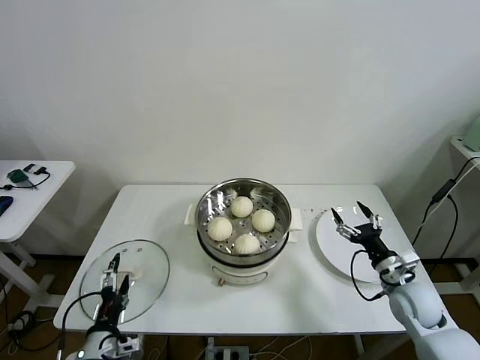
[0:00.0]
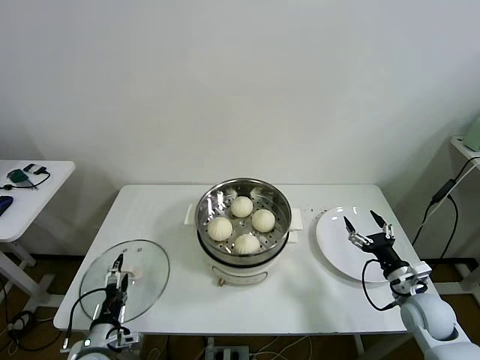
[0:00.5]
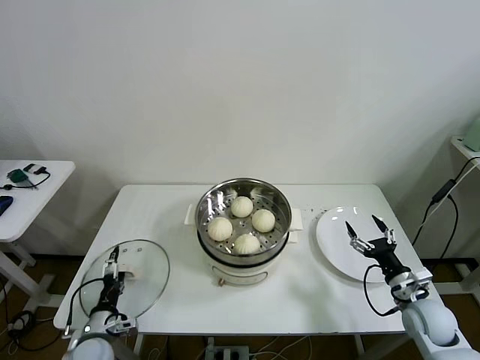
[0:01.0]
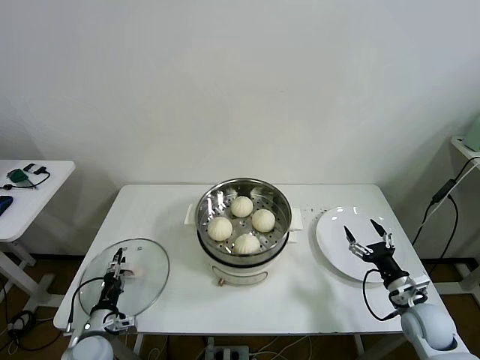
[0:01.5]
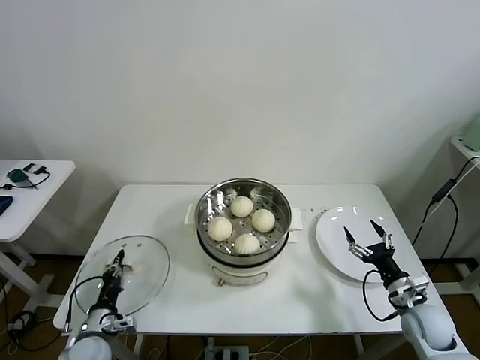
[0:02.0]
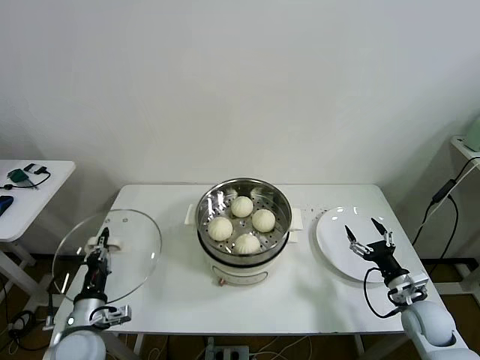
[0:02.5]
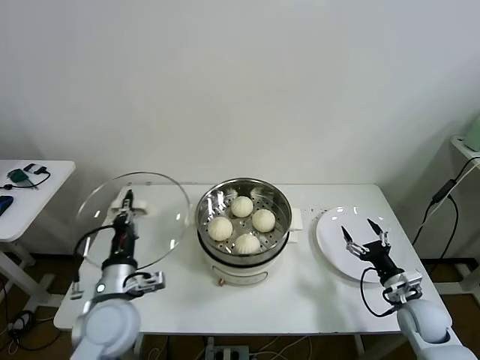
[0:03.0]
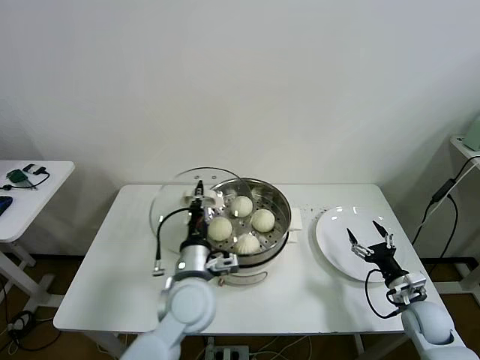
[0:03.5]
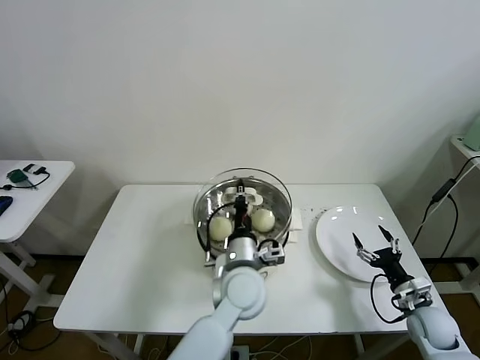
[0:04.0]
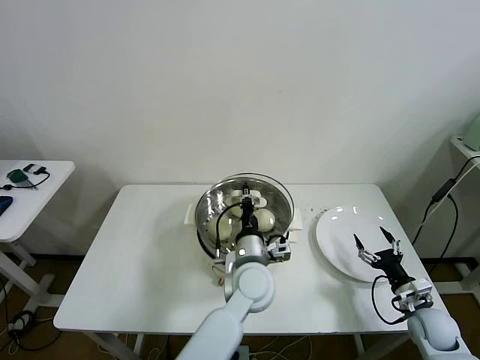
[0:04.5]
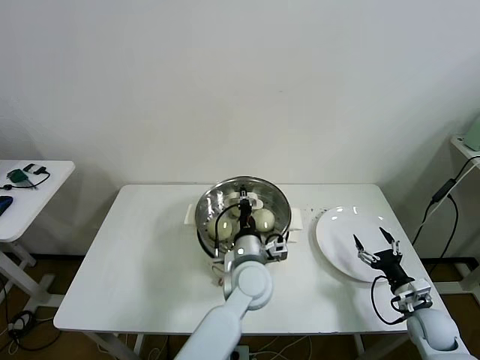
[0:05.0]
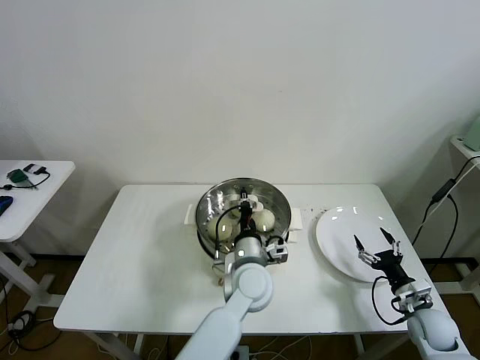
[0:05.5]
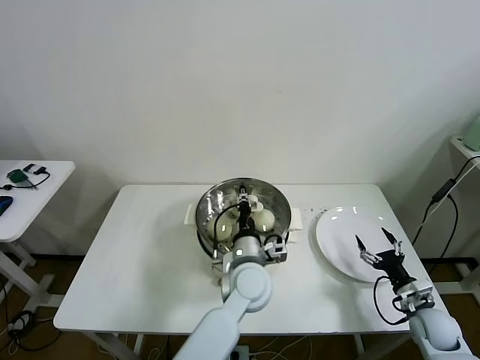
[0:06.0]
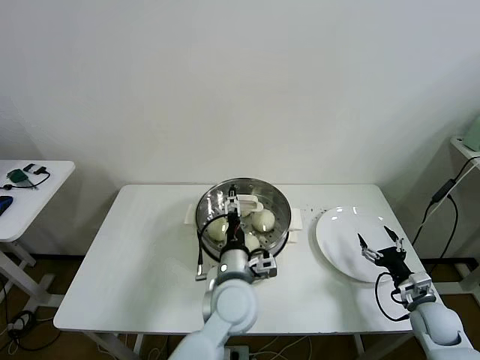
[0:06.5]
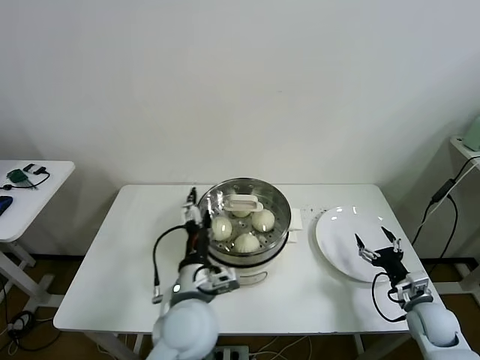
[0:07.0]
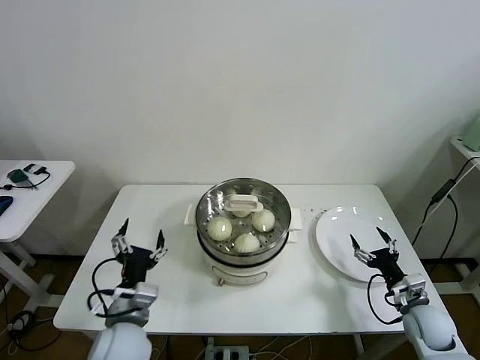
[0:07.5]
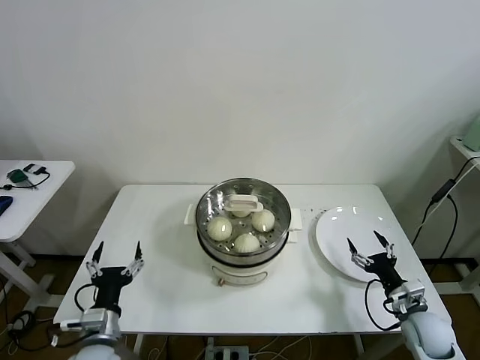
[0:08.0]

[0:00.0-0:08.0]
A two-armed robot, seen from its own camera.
Task of the whole recording: take steamed baozi put them in steamer then cover it.
Step, 0:02.0 to 0:06.0: Place the pot lid on the steamer with left gripper.
0:00.0 to 0:02.0: The right gripper changes place by roughly 5 cm; the left gripper moves downward, forward and to the left, approximately 15 cm, and closes its fingers.
0:02.0 to 0:04.0: The left gripper is displaced to the right and upward by about 40 cm.
0:04.0 to 0:06.0: The grippers stay close to where they were, moving slightly.
0:06.0 to 0:08.0: The left gripper travels to the left and backward by approximately 35 cm, and opens.
